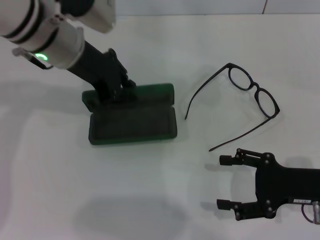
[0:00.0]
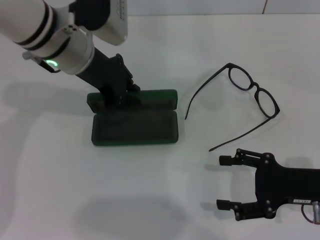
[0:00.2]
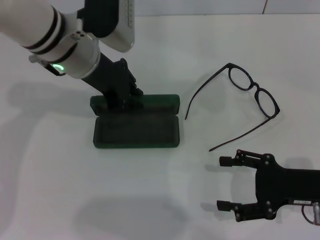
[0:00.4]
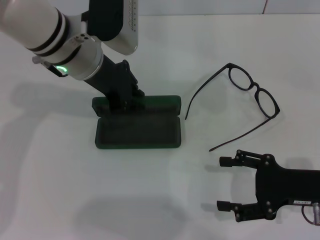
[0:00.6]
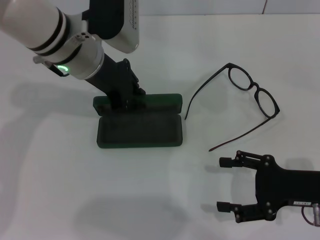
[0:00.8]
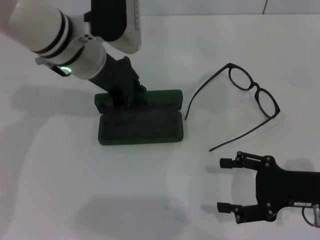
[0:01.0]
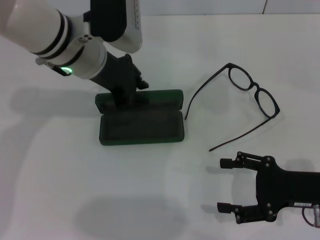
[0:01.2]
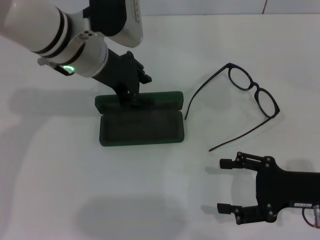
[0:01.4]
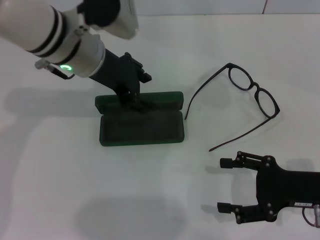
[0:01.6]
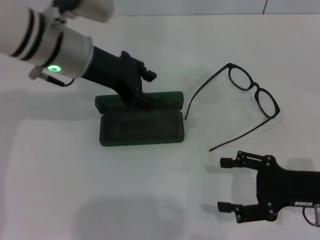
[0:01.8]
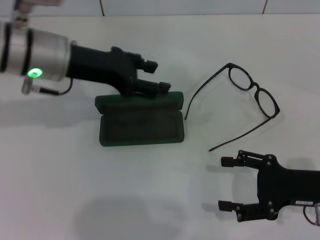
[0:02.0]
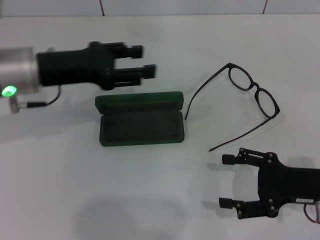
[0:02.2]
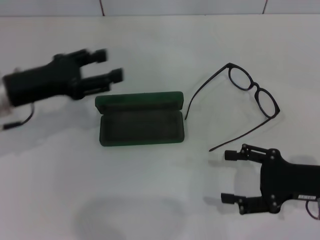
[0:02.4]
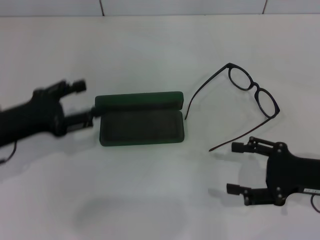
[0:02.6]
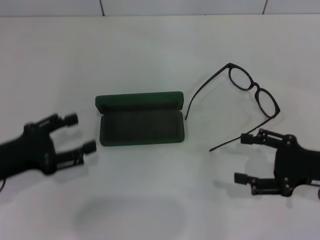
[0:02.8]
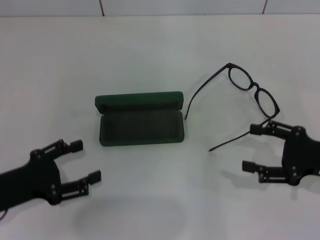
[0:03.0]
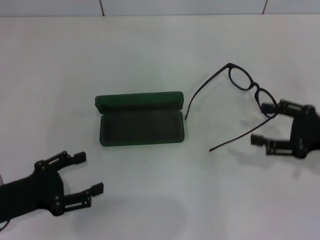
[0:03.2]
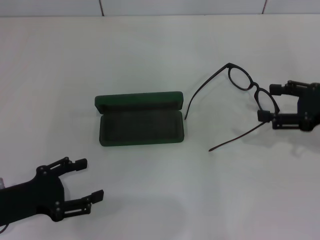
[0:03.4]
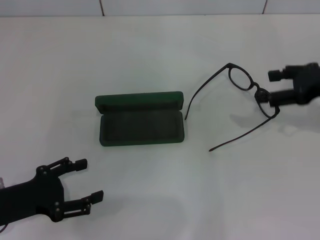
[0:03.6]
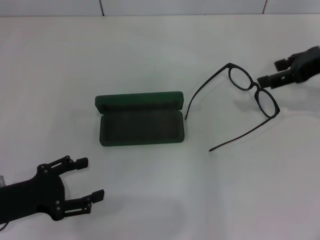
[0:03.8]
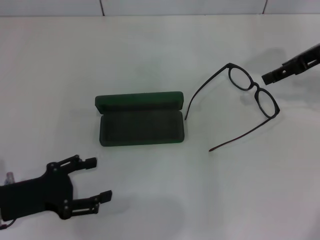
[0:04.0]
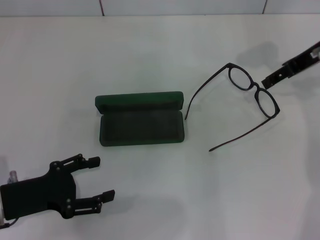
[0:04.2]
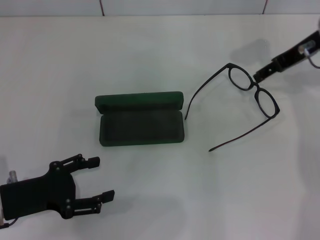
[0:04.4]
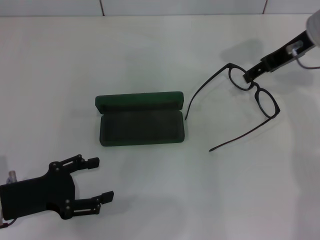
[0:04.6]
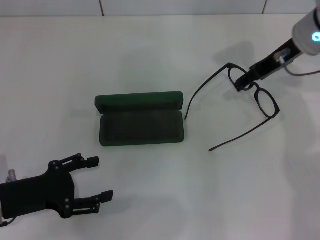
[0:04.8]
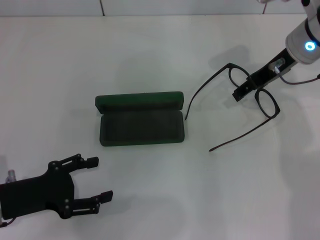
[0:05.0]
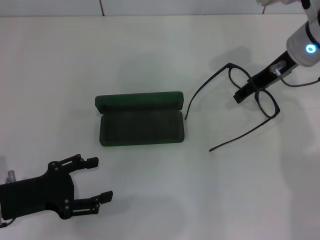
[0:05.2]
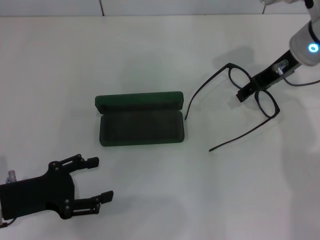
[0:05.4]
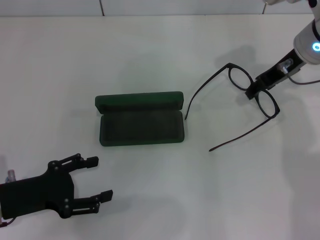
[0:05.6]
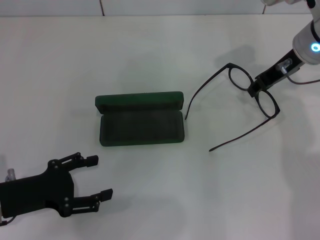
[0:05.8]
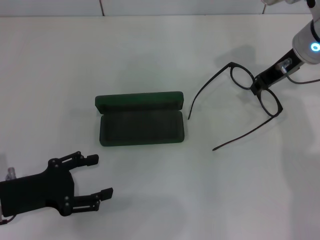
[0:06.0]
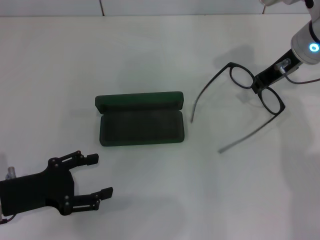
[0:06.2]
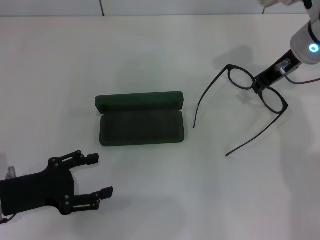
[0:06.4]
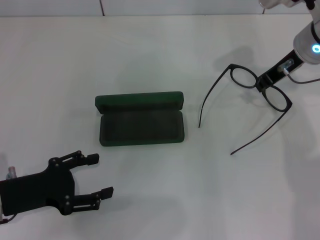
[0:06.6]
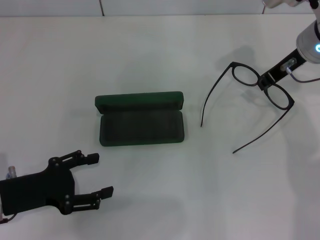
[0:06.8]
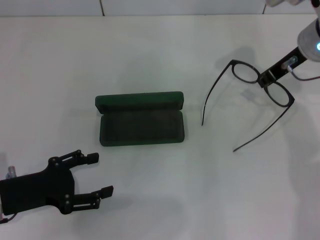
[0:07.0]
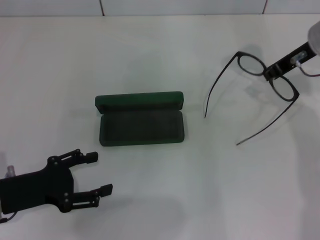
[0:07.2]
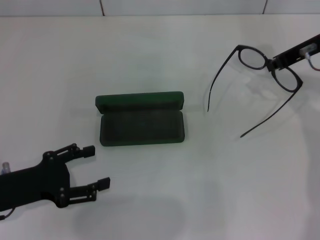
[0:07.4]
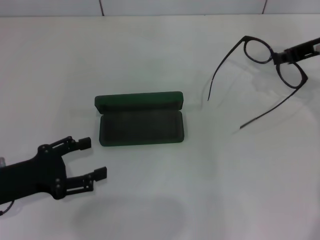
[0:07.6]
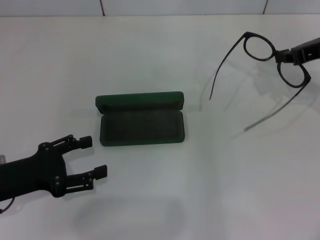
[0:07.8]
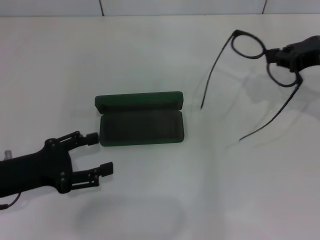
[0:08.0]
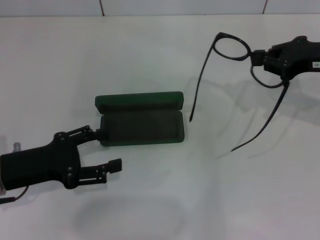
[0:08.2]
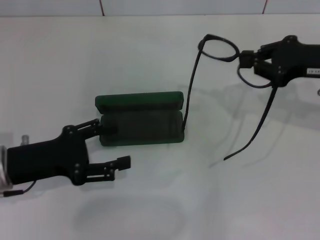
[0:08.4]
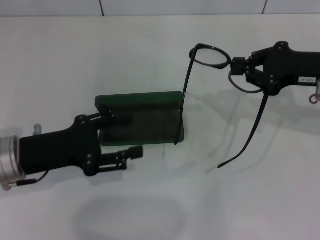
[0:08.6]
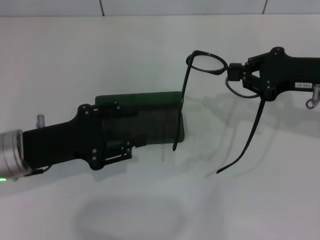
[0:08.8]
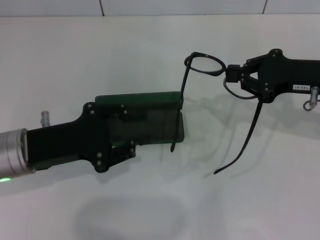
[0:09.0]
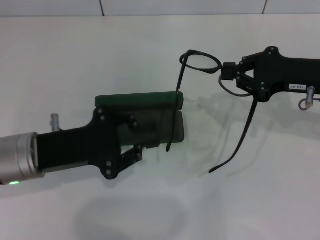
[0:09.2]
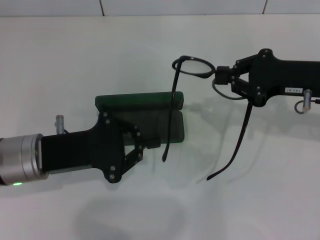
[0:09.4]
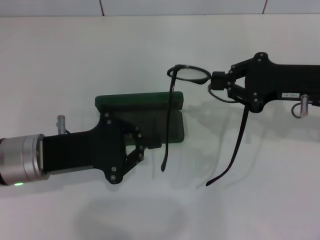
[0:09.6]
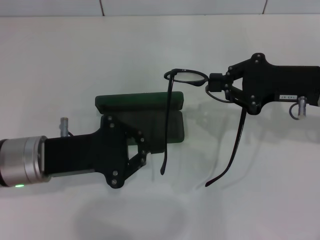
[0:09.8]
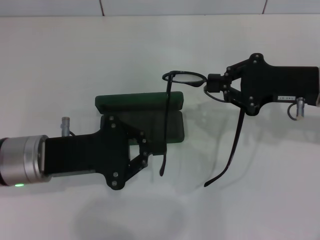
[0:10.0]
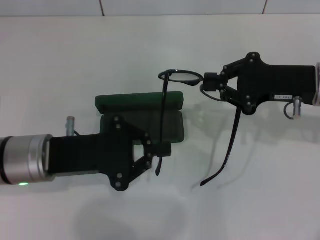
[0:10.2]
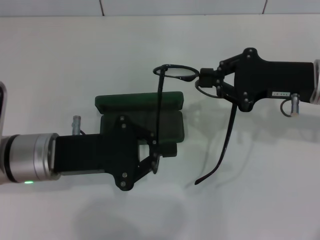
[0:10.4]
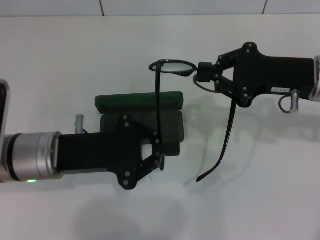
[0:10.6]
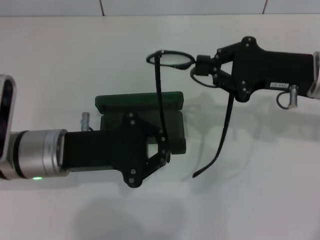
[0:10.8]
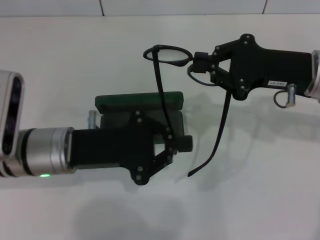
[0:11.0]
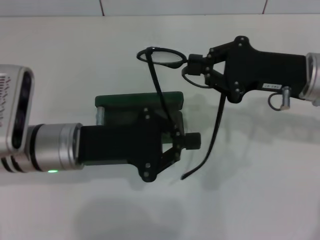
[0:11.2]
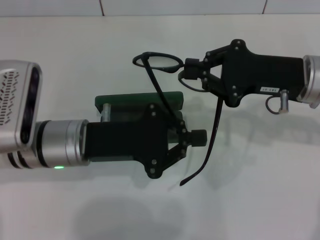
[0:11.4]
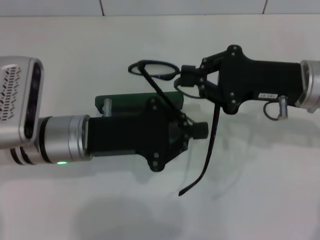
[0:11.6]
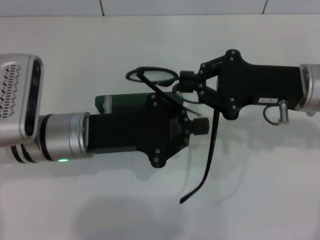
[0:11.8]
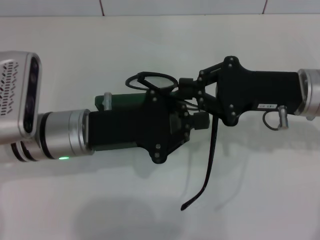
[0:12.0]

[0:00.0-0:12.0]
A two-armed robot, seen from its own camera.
Step, 0:00.0 to 0:01.4: Place the glasses case in the center of the table with your left hand.
Step, 0:01.6 to 0:06.2: Grab the eyeglass frame with your right hand.
0:00.0 to 0:01.6: The grippers make only small movements.
0:01.6 to 0:03.0: The left gripper is displaced backward, to the left and downward by roughly 30 cm, and opens up.
0:03.0 to 0:04.4: The right gripper travels forward and upward by about 20 cm.
0:04.4 to 0:06.0: The right gripper closes up.
0:06.0 to 0:07.6: The right gripper goes roughly 5 cm to the right, and closes.
0:07.6 to 0:09.0: The right gripper heads backward, covering about 5 cm. The left gripper moves to the right, some 5 cm.
0:09.0 to 0:10.4: The left gripper closes up.

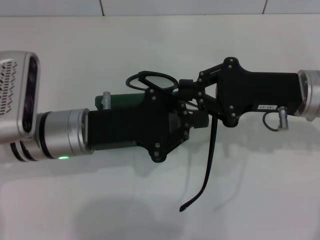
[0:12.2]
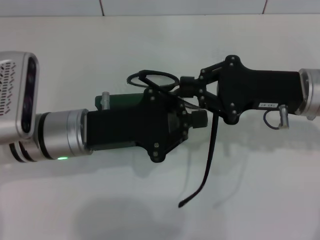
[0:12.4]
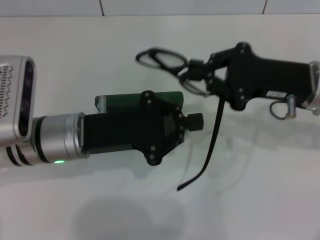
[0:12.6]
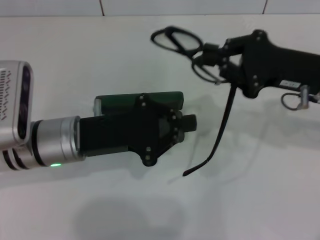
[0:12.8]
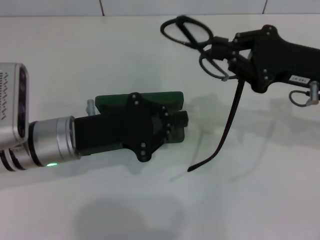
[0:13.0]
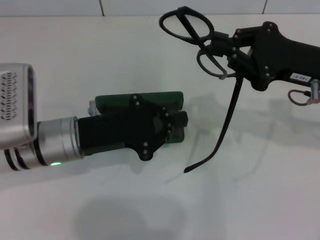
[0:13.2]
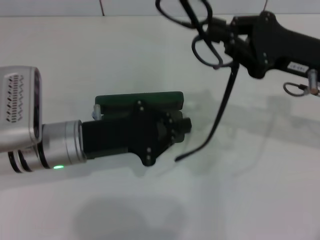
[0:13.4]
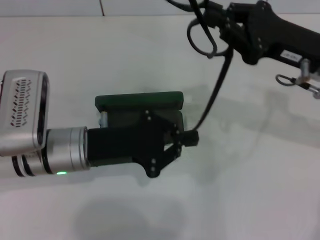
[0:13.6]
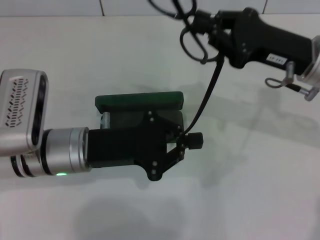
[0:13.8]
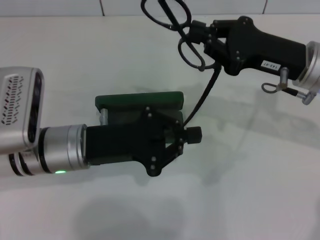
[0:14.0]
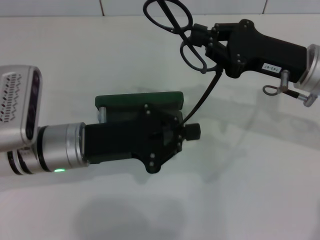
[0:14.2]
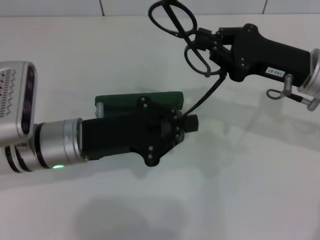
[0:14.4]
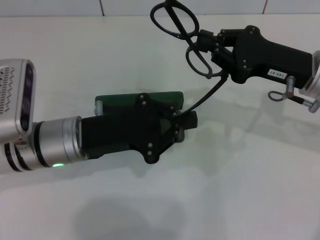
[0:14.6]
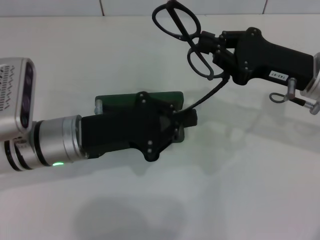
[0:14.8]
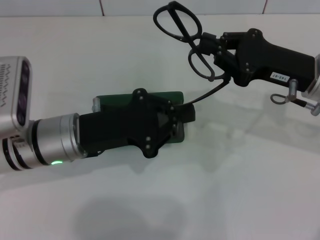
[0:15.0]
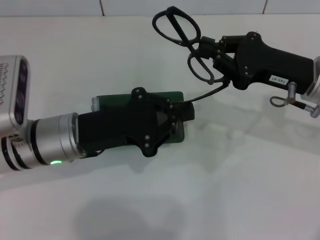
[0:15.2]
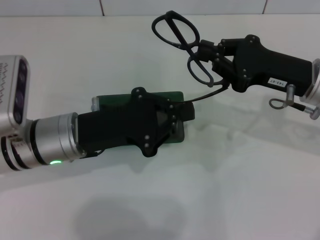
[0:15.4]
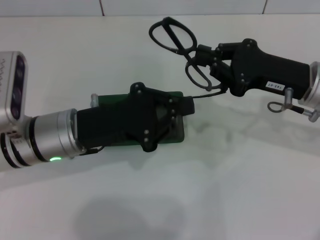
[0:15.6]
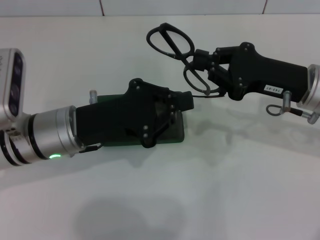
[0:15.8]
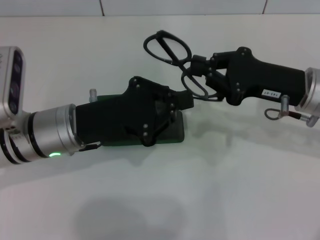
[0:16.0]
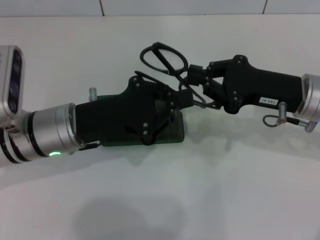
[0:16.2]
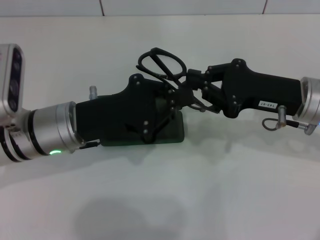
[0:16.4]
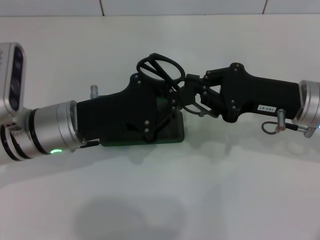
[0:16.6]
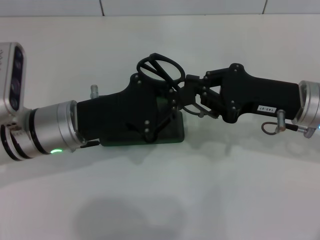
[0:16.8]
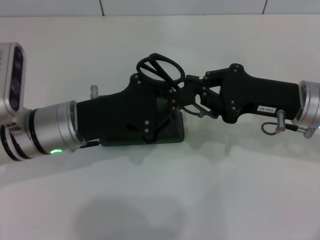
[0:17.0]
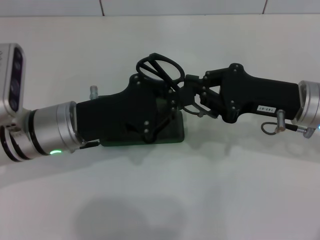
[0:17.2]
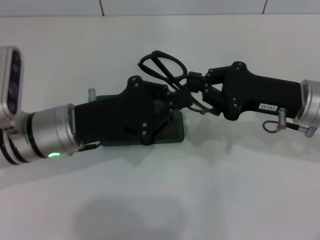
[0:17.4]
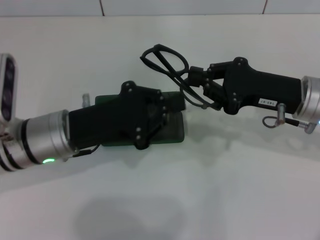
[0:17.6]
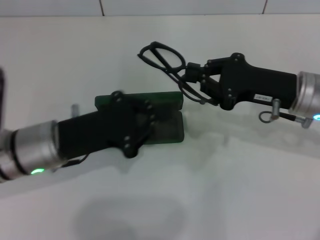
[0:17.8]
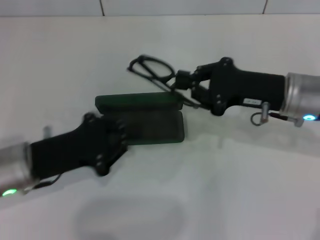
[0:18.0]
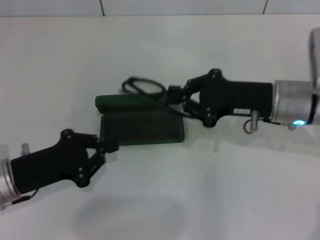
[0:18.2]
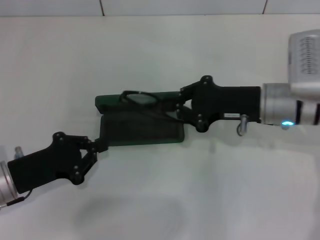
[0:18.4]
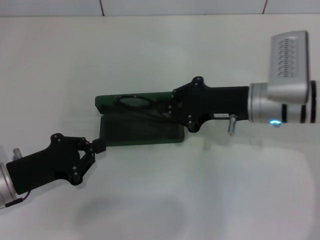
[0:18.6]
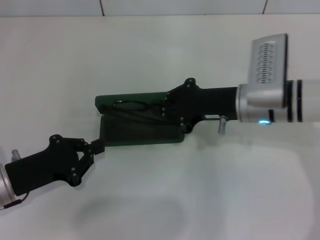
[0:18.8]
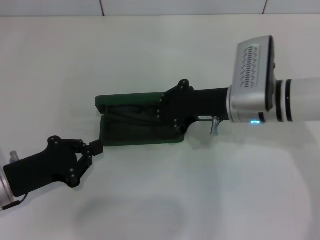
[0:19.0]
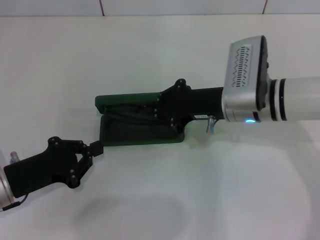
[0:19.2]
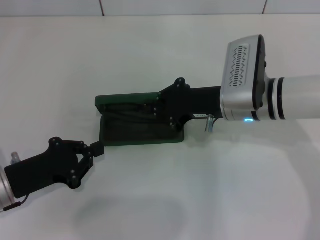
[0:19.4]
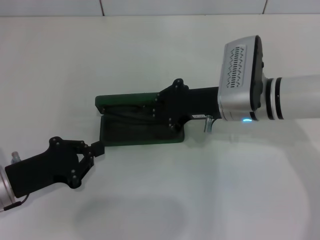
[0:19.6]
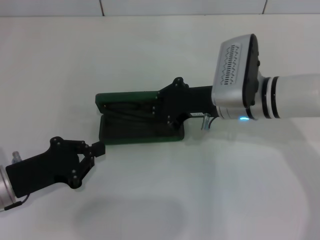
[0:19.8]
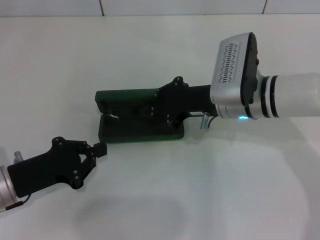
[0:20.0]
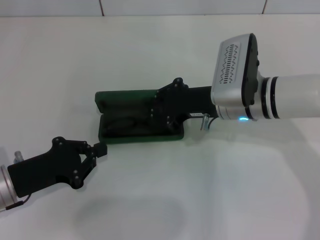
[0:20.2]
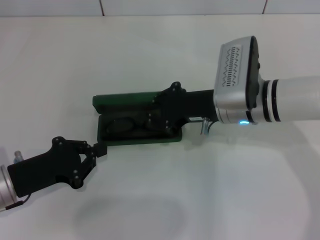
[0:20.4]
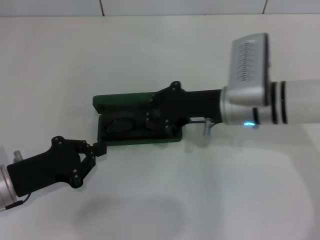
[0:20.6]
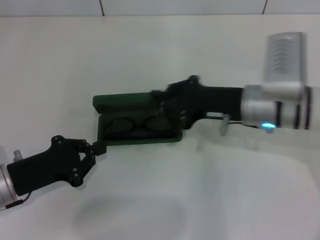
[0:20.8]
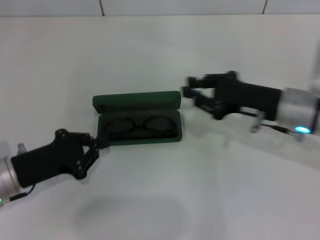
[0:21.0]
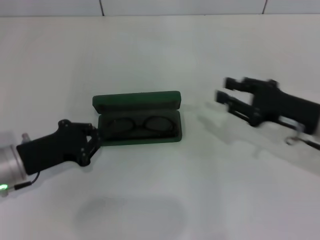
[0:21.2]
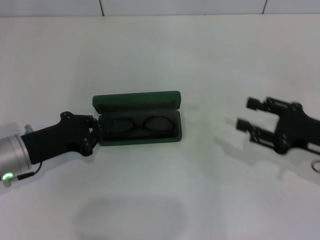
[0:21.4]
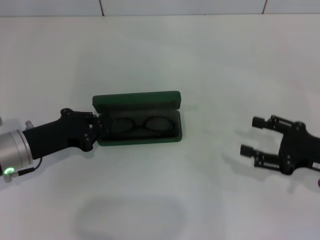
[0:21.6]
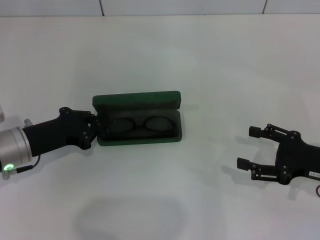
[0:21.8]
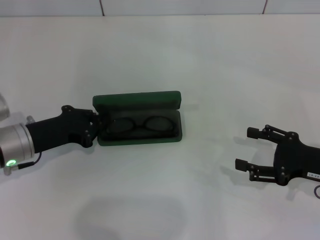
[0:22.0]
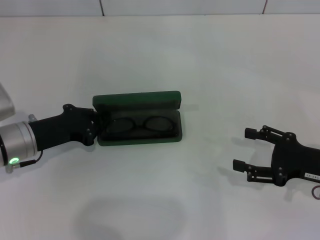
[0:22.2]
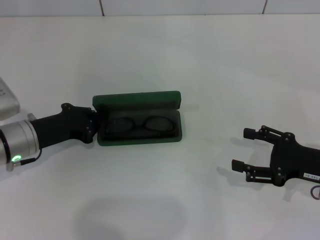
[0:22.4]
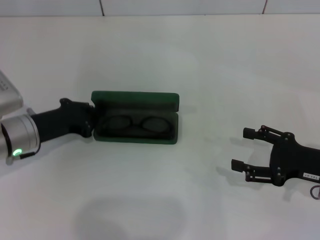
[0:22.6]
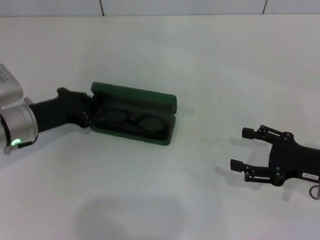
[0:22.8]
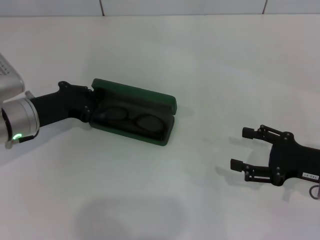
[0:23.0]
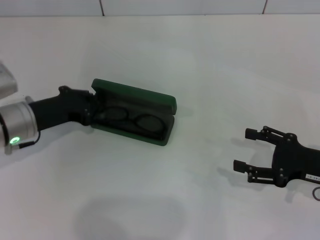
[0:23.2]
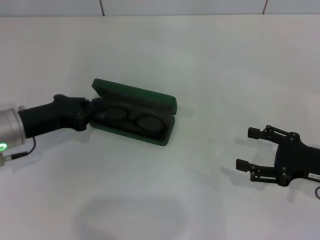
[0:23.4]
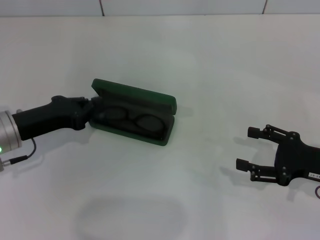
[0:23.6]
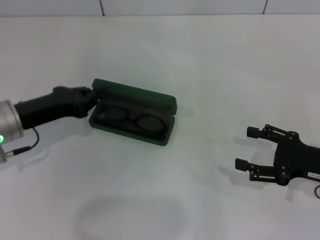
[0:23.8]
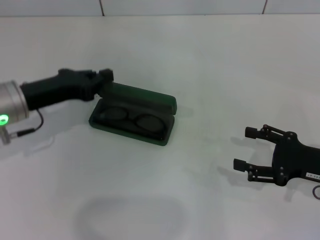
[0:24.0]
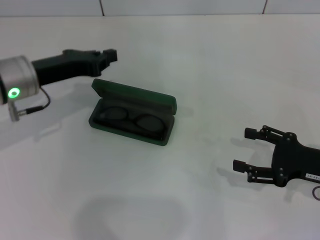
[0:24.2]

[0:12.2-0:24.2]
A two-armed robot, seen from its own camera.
Step, 0:12.2 to 0:17.2: Fold the frame with your left hand.
Step, 0:17.4 to 0:20.2: Put the glasses into the case with your right hand.
0:16.6 to 0:18.2: The left gripper heads to the left and backward, covering approximately 10 cm.
0:18.2 to 0:19.8: The right gripper travels to the left by some 5 cm.
0:19.8 to 0:21.2: The right gripper moves to the right, some 15 cm.
0:21.2 to 0:22.6: The left gripper is displaced forward by about 5 cm. Meanwhile the right gripper ends up some 5 cm from where it was, and opens up.
0:22.6 to 0:24.2: The left gripper goes some 10 cm upward.
